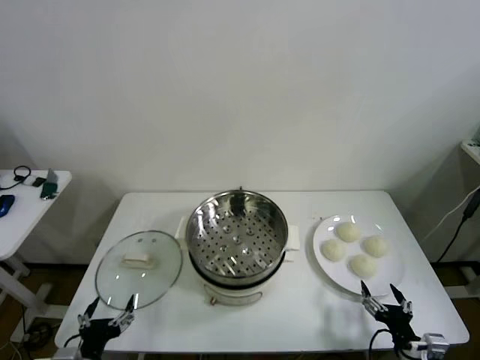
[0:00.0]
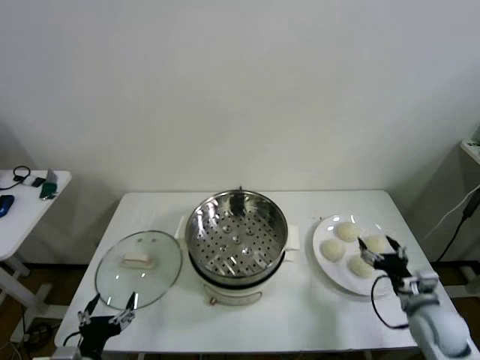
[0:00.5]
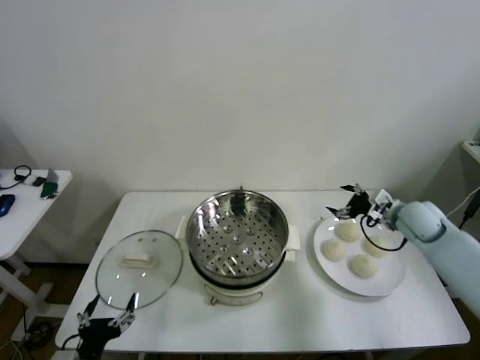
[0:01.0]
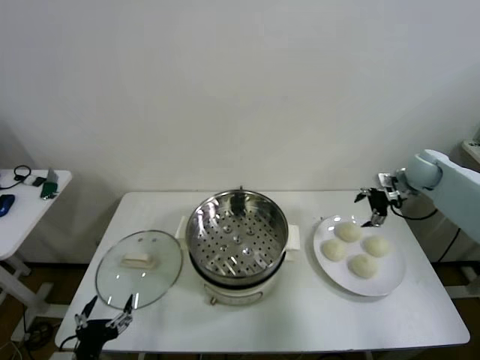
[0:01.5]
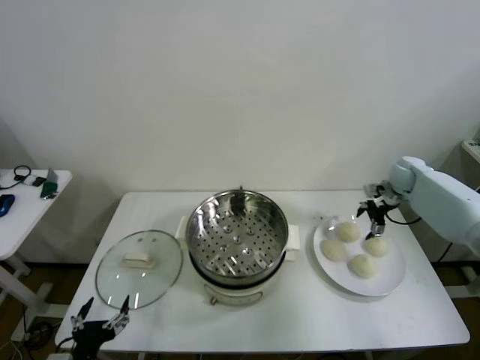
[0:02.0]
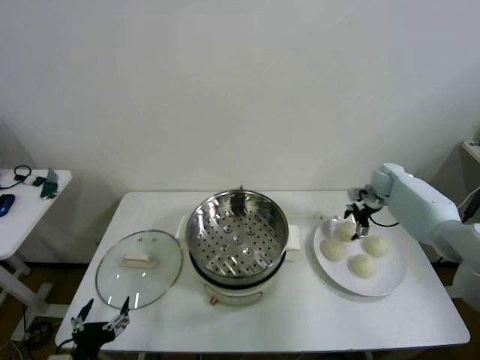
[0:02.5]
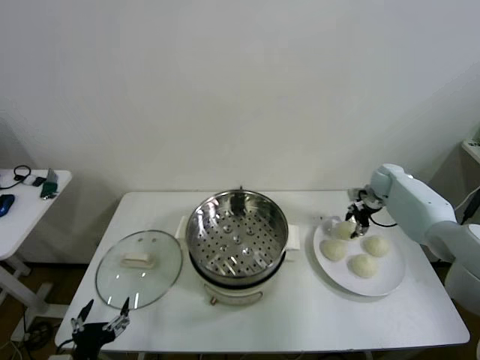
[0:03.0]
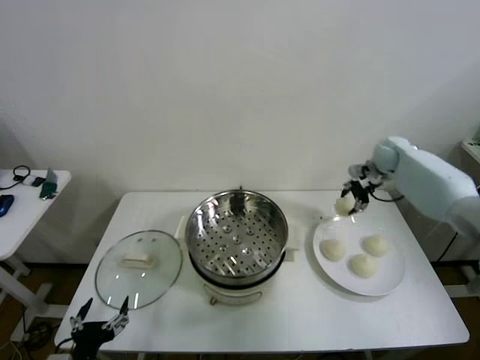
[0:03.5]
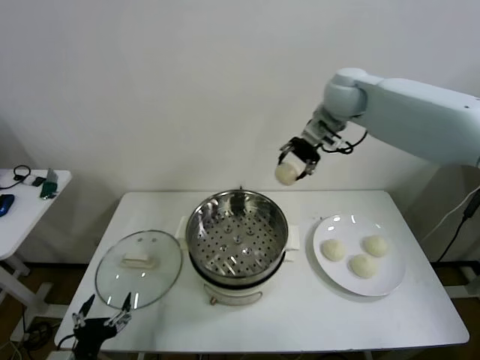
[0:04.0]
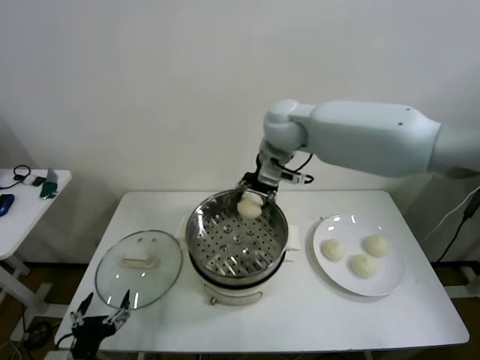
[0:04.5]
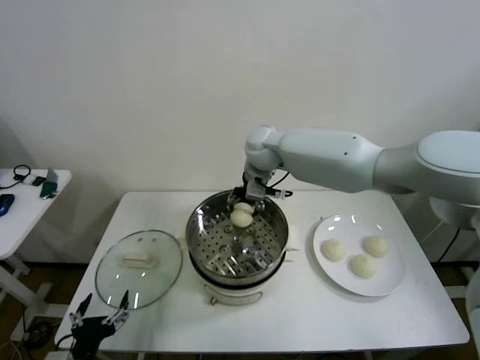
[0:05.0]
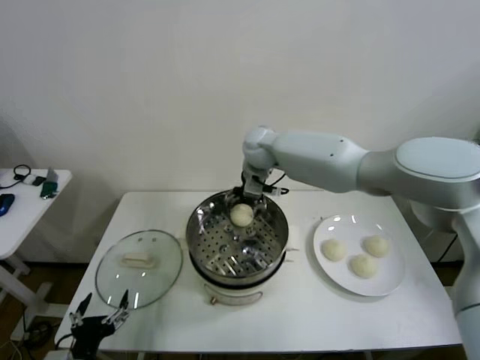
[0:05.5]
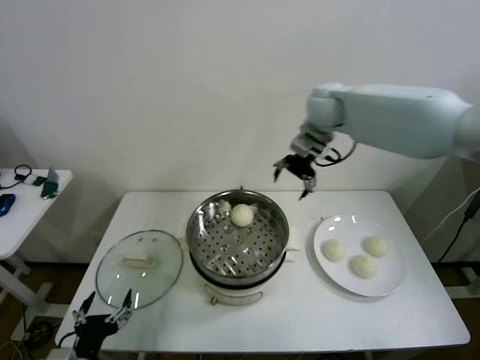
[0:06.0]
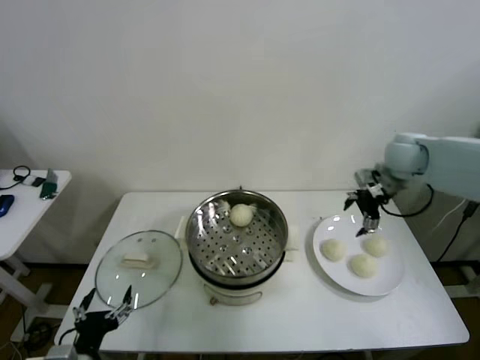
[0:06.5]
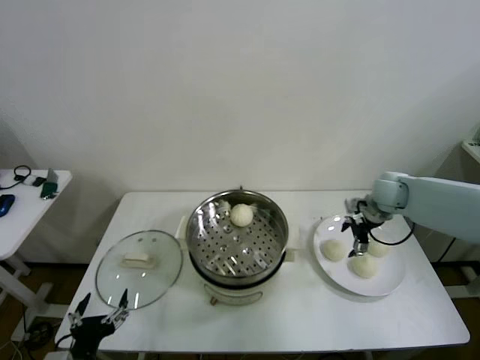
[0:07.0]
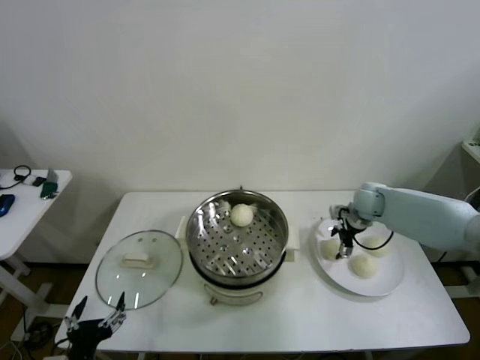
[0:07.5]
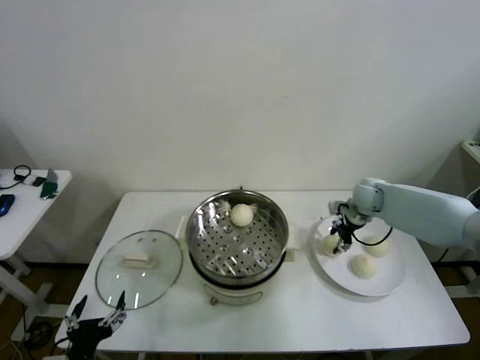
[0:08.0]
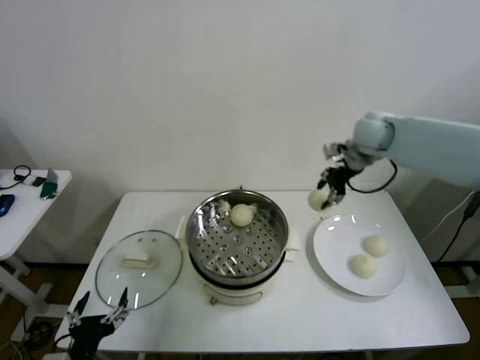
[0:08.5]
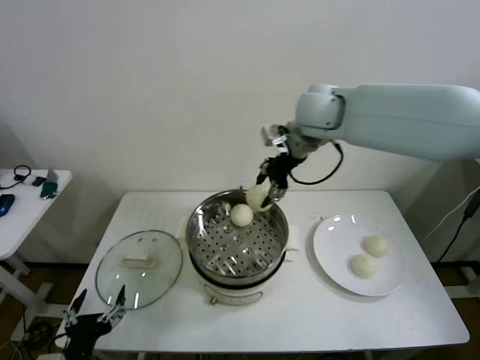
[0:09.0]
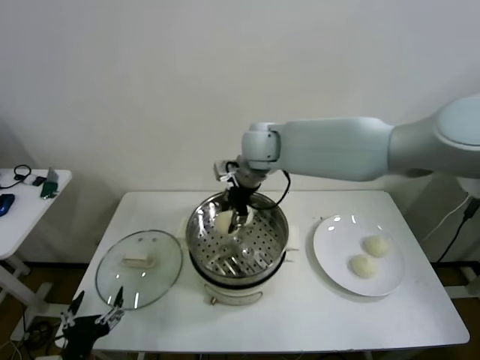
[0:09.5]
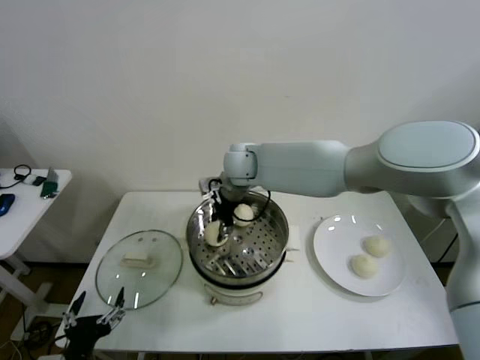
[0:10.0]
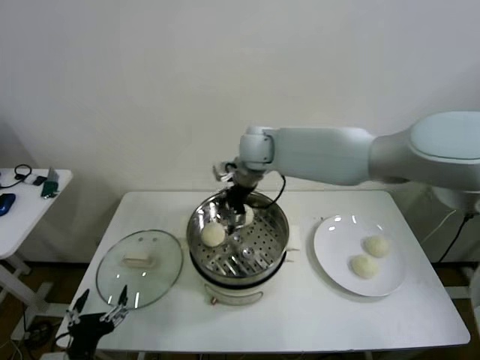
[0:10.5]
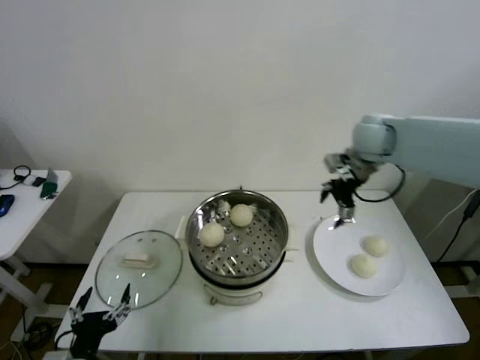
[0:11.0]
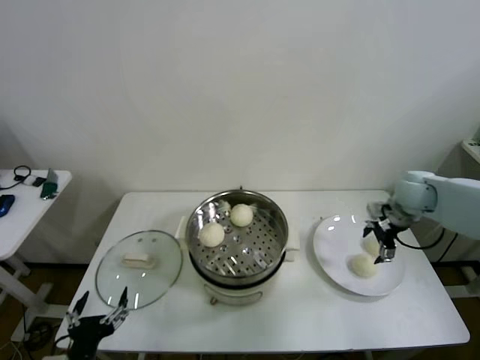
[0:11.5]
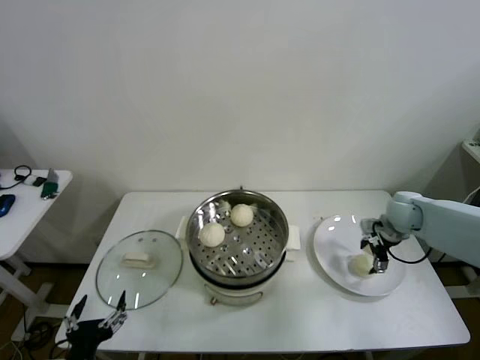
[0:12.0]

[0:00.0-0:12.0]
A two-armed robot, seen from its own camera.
Step, 0:00.0 to 0:03.0: Grasp the baozi in the plate with right gripper.
Step, 0:03.5 to 0:05.5: Place the baozi on the steamer with right gripper.
Step, 0:06.0 to 0:07.5: Grasp the baozi in the plate with right gripper.
Step, 0:08.0 to 0:10.0: Place the baozi on the steamer with right gripper.
0:02.0 to 0:04.0: The right gripper shifts roughly 35 cm to the left and upward, and closes up.
0:04.0 to 0:06.0: The right gripper travels to the left and back again, roughly 10 cm each way, and opens up.
0:06.0 to 0:08.0: The right gripper goes about 25 cm downward and to the right, and closes.
0:08.0 to 0:10.0: The right gripper travels to the left by some 35 cm.
0:10.0 to 0:12.0: The right gripper heads to the right, covering some 40 cm, and opens up.

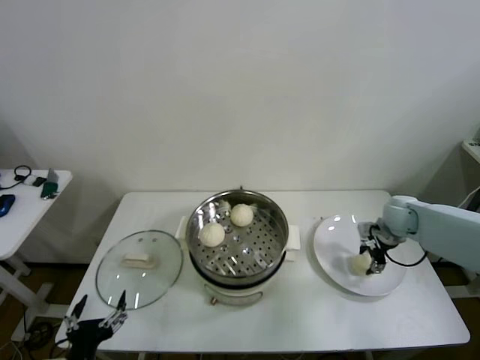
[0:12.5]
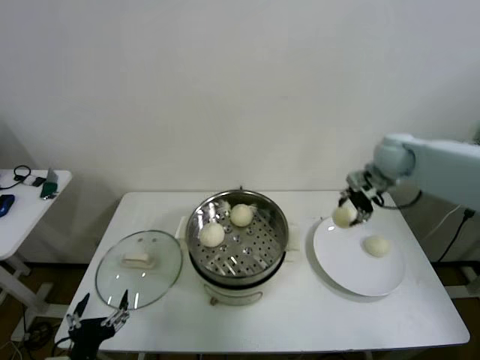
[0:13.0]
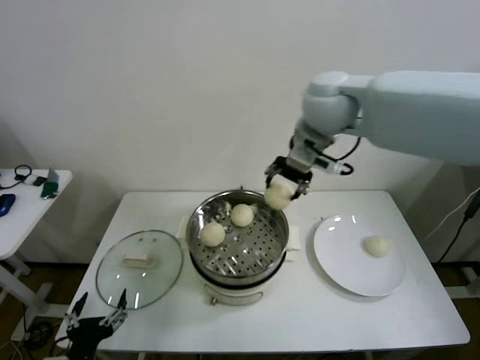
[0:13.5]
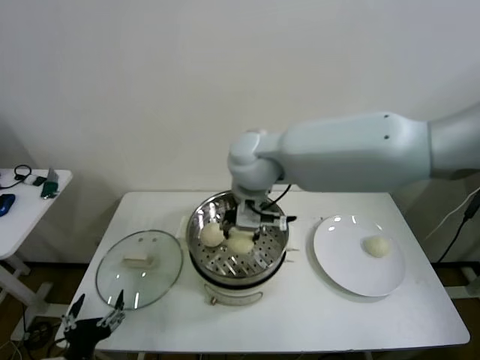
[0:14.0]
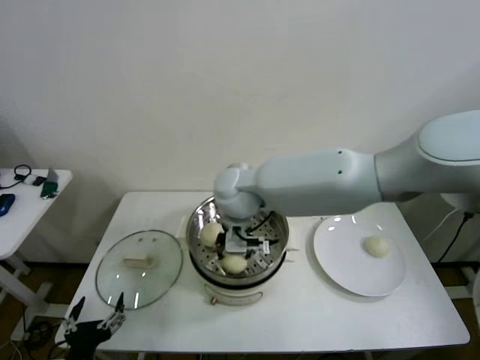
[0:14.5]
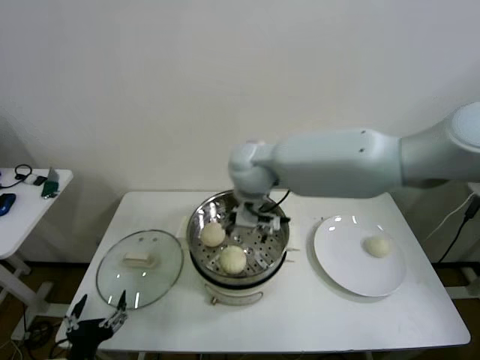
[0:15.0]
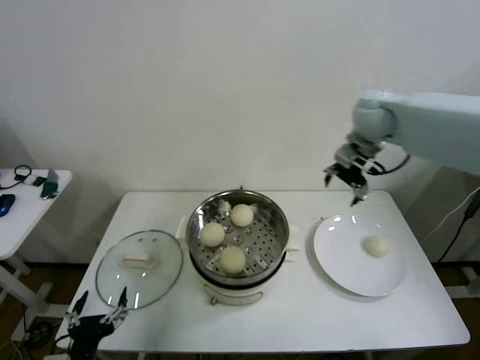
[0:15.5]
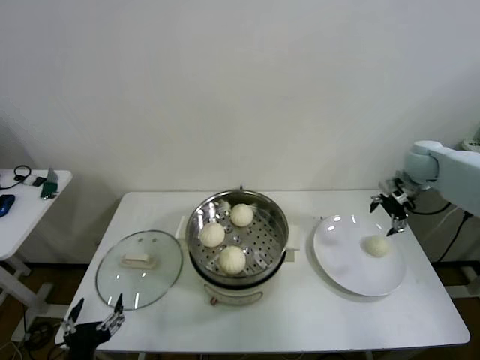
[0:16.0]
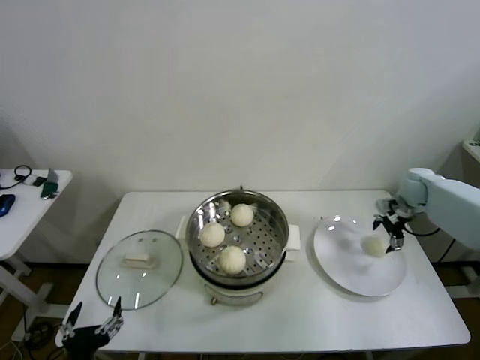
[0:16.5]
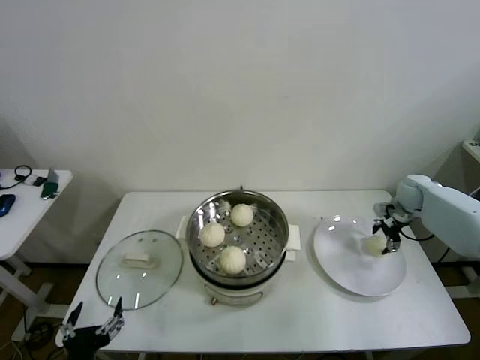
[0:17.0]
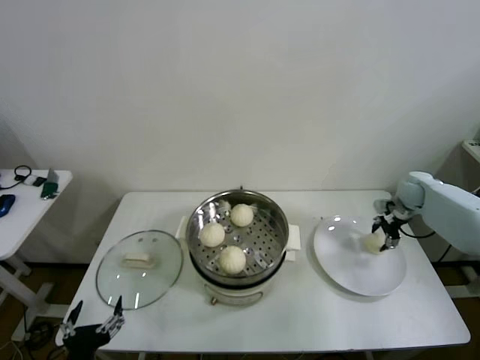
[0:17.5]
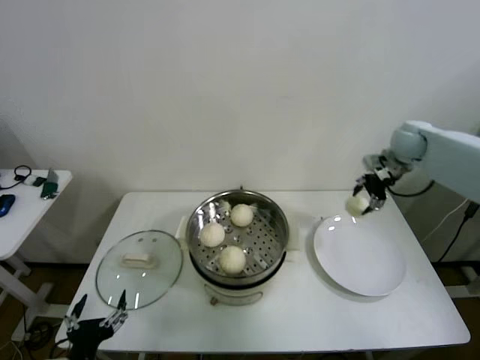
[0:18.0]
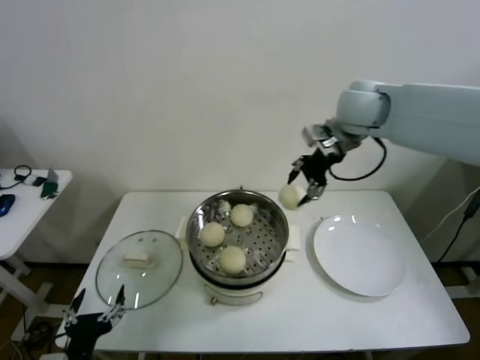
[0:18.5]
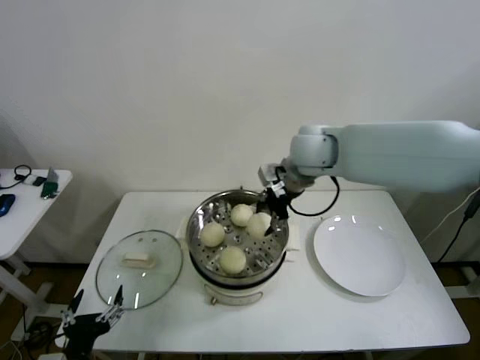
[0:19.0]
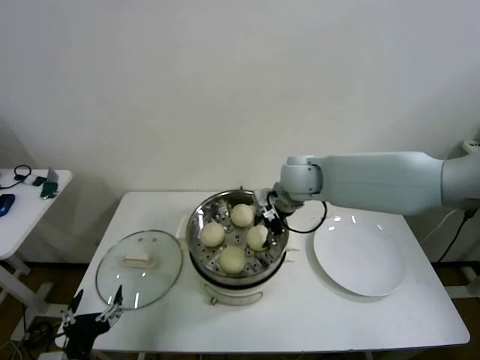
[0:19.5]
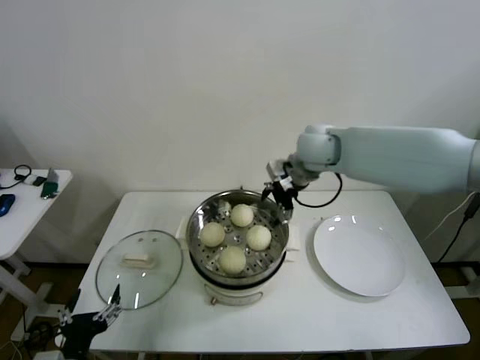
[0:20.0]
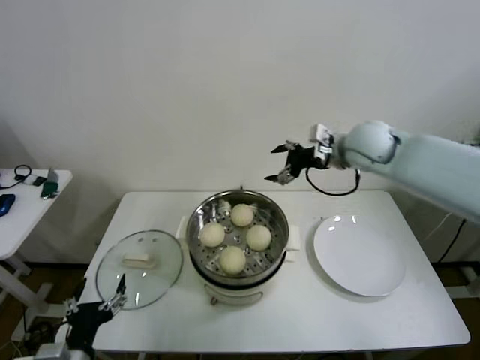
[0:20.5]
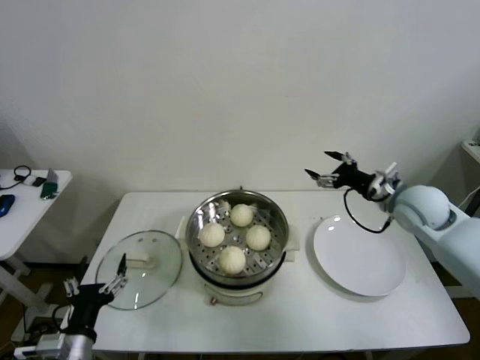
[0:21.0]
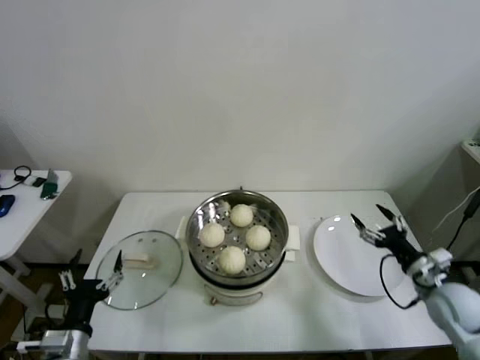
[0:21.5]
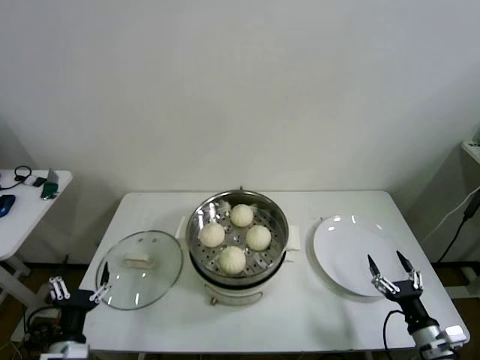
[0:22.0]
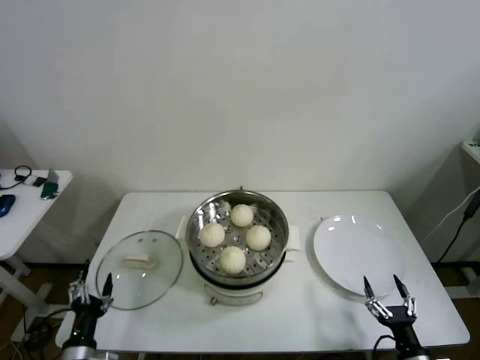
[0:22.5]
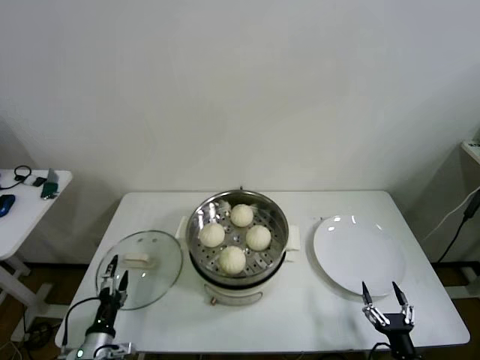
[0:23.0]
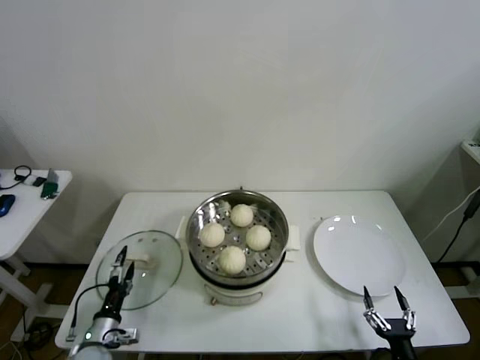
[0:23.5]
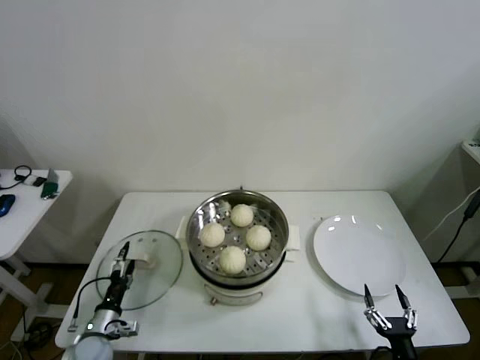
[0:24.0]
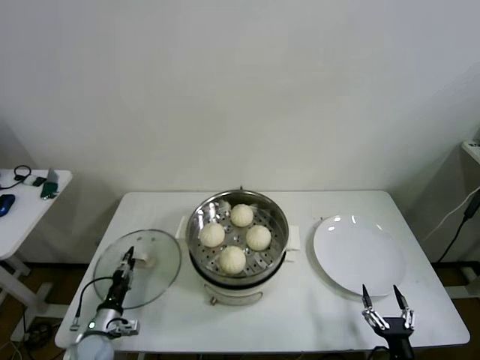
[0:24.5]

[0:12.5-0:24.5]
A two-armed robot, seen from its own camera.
Step, 0:12.5 to 0:14.5: Place the baozi on the steamer with right gripper.
Step, 0:15.0 to 0:17.5: Grasp the baozi in the plate with right gripper.
Step, 0:18.0 to 0:19.5: Place the baozi on the steamer with right gripper.
0:12.5 to 0:14.5: The right gripper shifts about 40 cm to the left.
0:14.5 to 0:16.5: The right gripper travels to the right by some 50 cm, and opens up.
0:16.5 to 0:18.5: The right gripper is displaced upward and to the left by some 35 cm, and closes.
0:18.5 to 0:20.5: The right gripper is displaced downward by approximately 10 cm, and opens.
0:20.5 to 0:22.5: The right gripper shifts roughly 50 cm backward and downward. Meanwhile the left gripper moves downward, about 10 cm.
0:22.5 to 0:24.5: The left gripper is displaced forward and downward by roughly 15 cm, and closes.

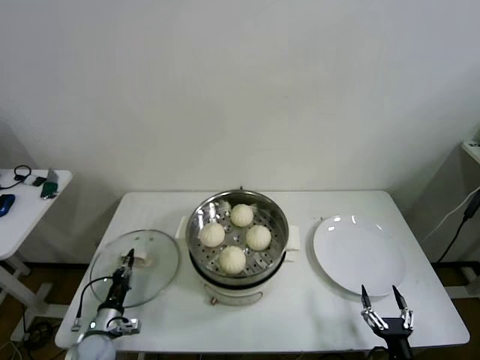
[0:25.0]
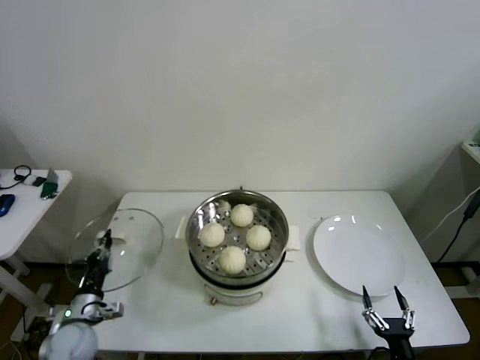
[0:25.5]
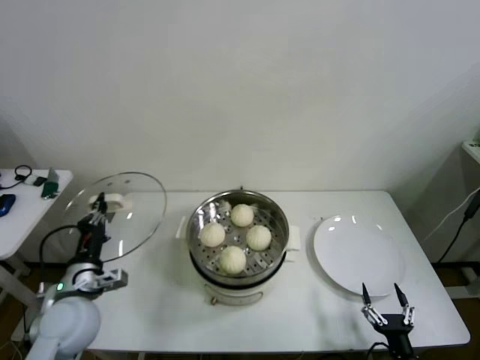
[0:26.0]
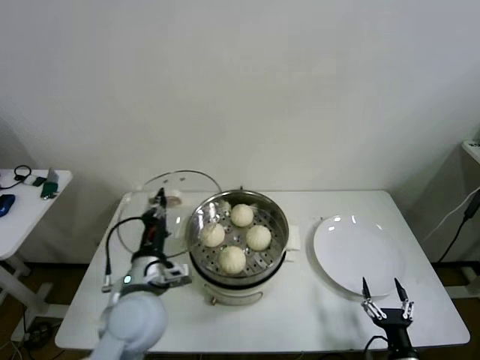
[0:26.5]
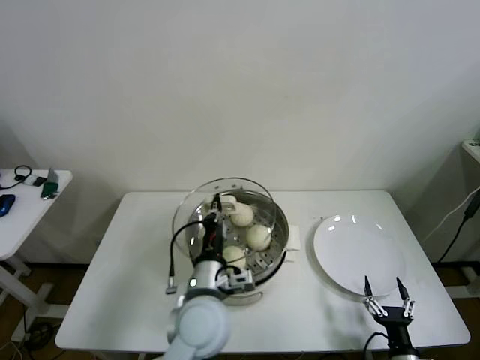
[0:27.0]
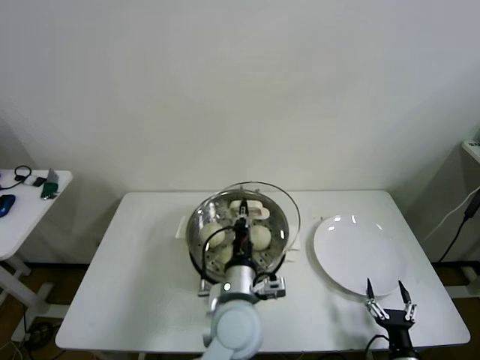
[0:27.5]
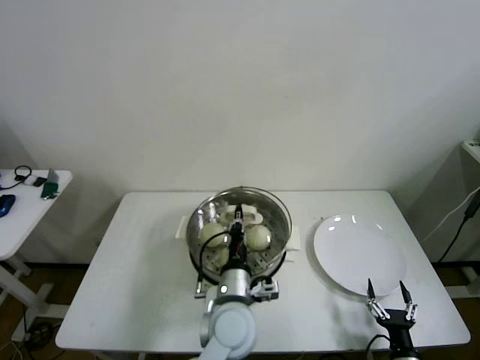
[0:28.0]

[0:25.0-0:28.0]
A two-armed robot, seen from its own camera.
0:25.0 to 0:26.5: The left gripper goes some 30 cm upward and to the right.
0:26.5 to 0:28.0: The left gripper is displaced to the right by roughly 20 cm.
